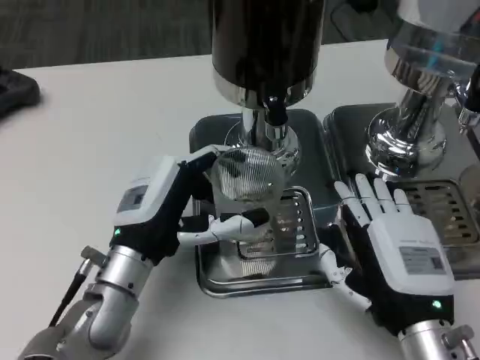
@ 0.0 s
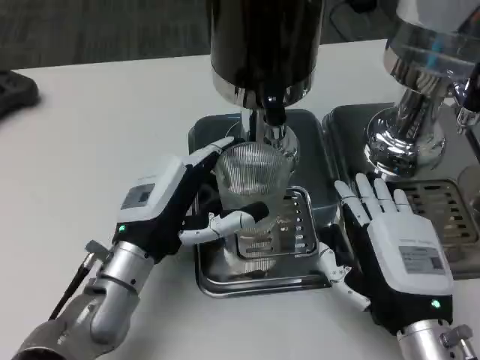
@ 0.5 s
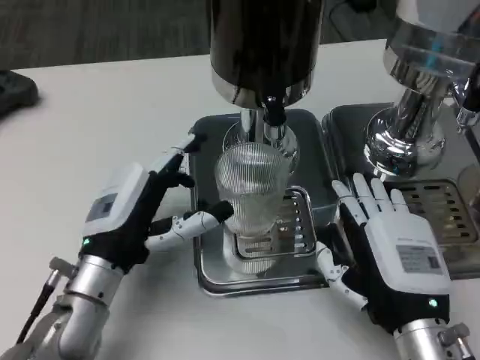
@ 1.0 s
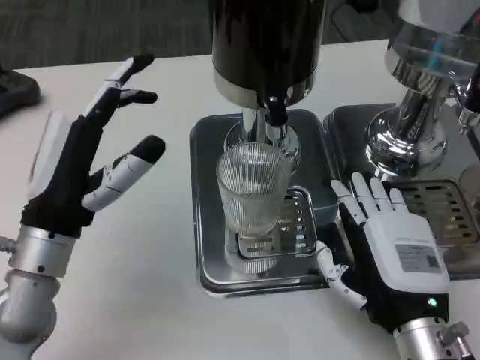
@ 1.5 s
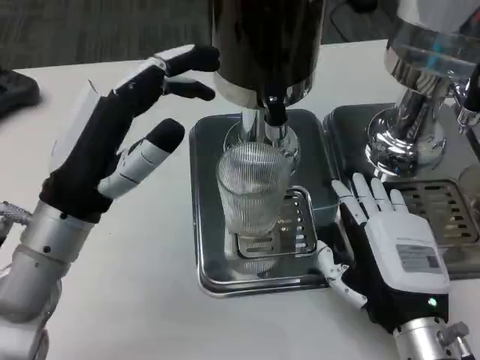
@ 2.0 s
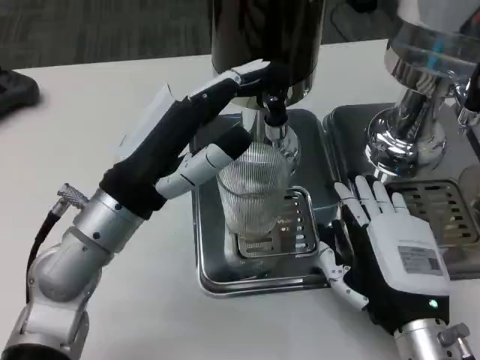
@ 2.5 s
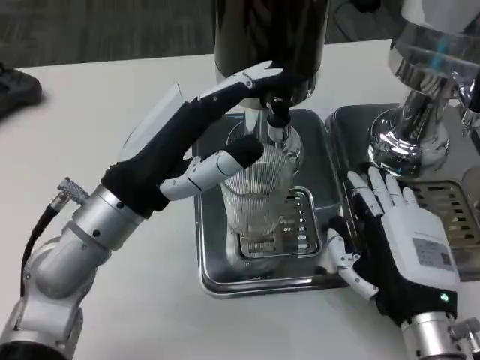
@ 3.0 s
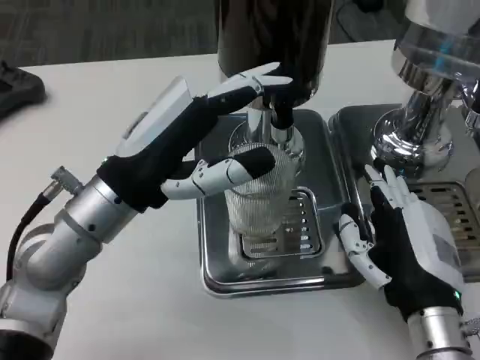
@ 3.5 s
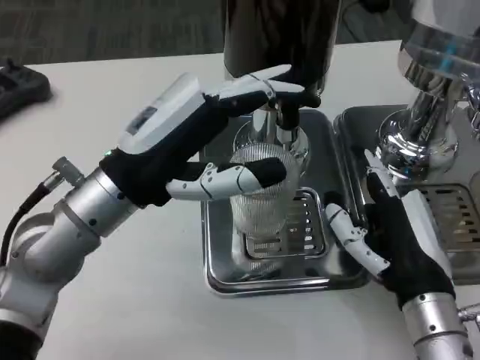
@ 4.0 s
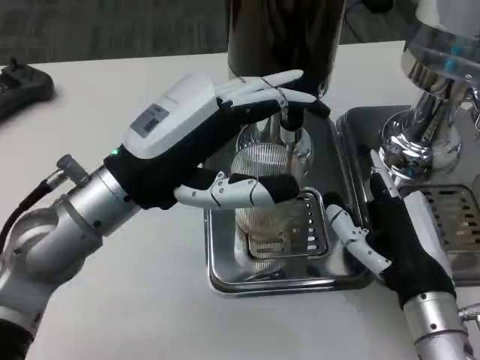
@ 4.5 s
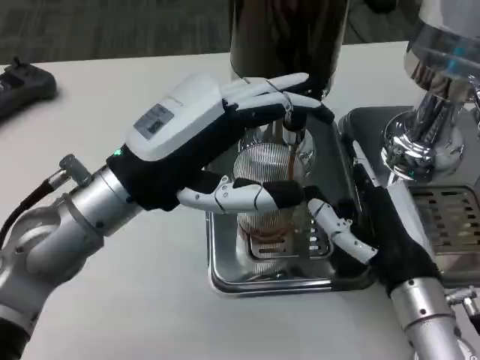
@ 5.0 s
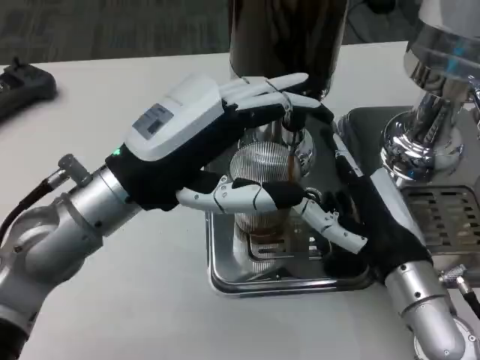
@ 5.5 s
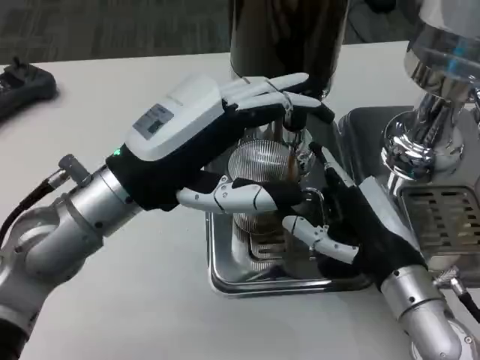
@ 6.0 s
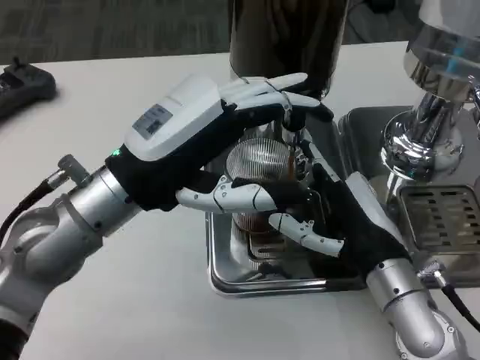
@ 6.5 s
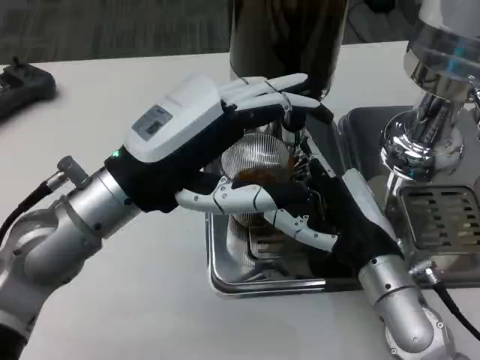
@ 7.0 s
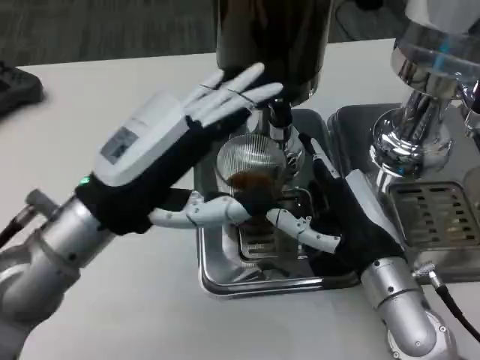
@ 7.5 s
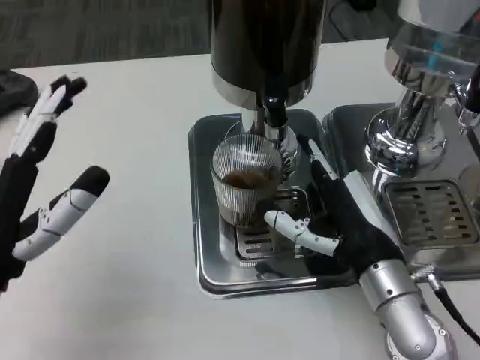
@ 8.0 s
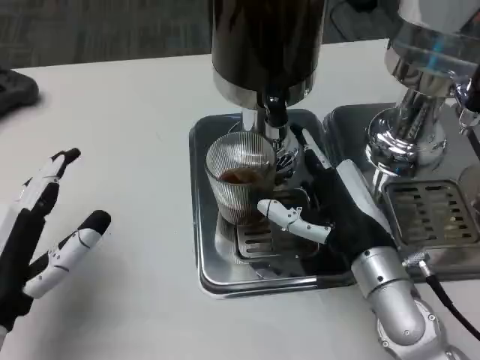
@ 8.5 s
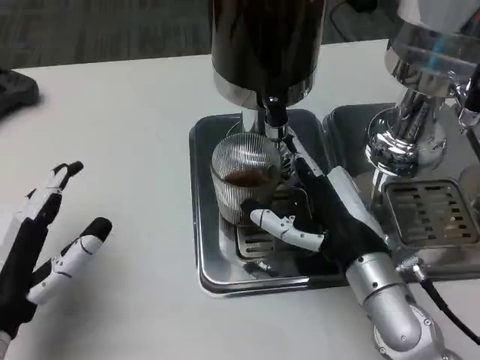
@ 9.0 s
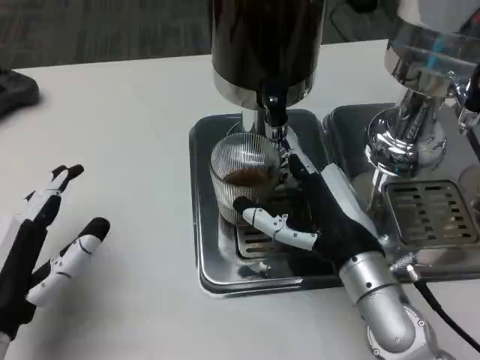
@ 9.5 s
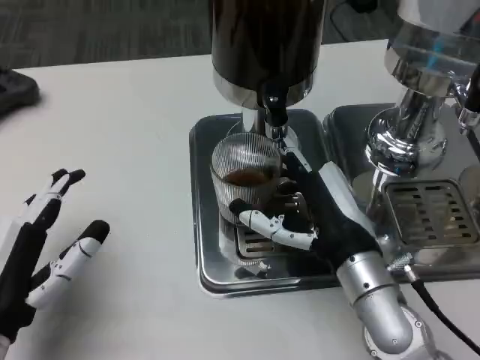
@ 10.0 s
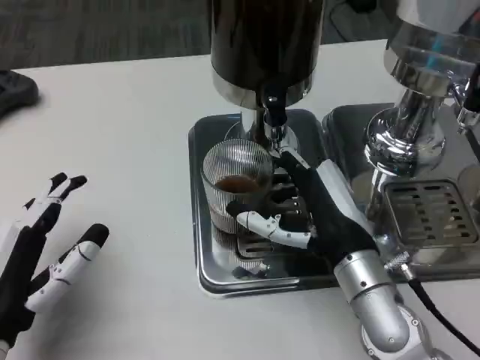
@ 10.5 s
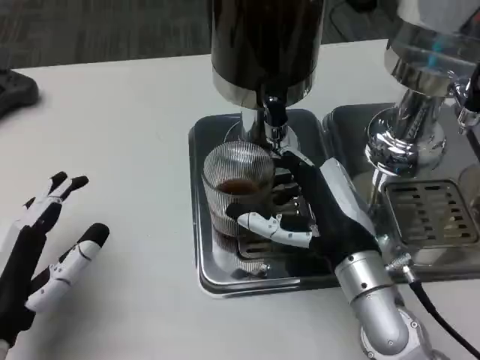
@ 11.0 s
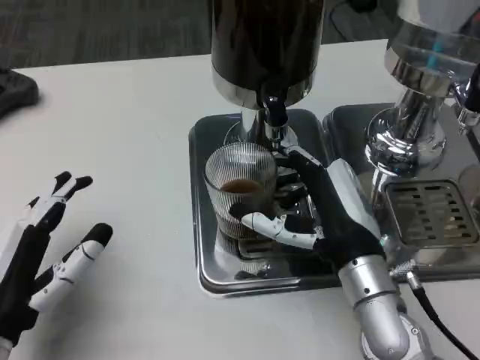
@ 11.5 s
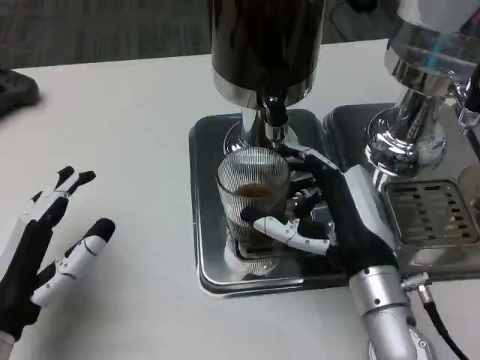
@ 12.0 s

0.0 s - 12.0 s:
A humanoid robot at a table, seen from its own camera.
Task of the whole recording: Grasp the cup under the faucet to collect the drink, then remove the cup.
0.0 s - 2.0 s: The left hand goes some 10 cm upward.
6.0 s - 8.0 s: The left hand moves backward, to the left and downward, roughly 15 cm.
8.0 s - 10.0 s: The left hand ends up approximately 5 cm from where it was.
10.0 s - 12.0 s: The hands stay close to where they were, moving slightly.

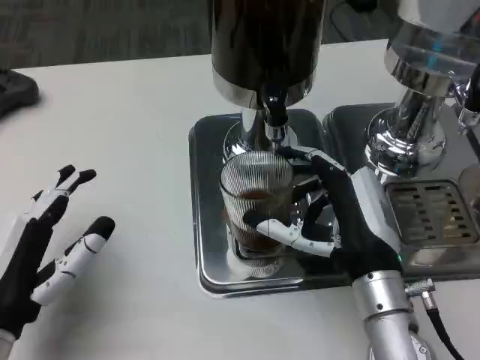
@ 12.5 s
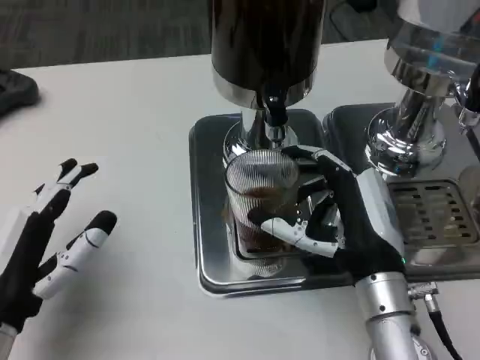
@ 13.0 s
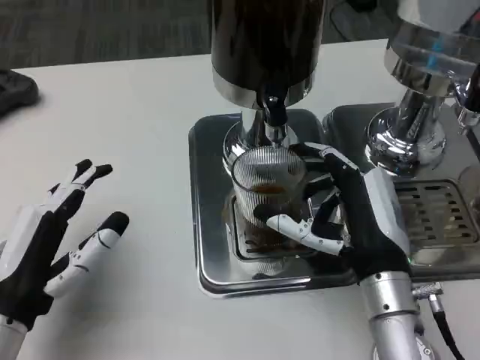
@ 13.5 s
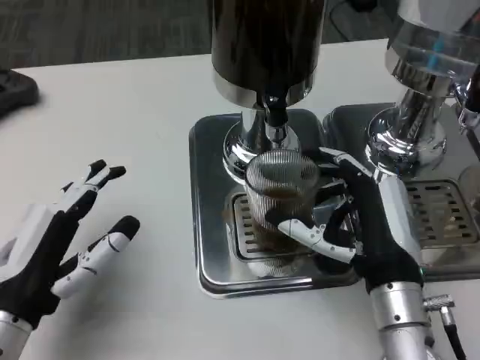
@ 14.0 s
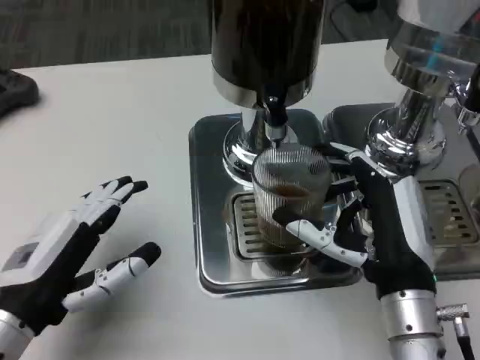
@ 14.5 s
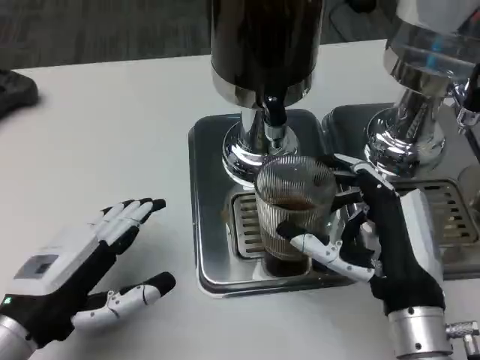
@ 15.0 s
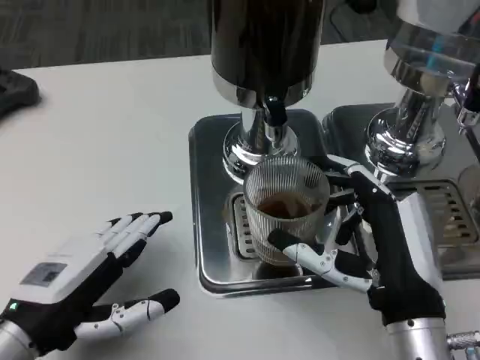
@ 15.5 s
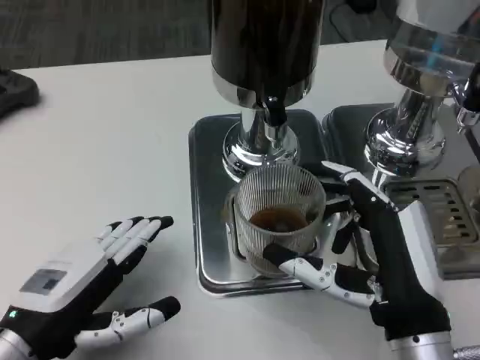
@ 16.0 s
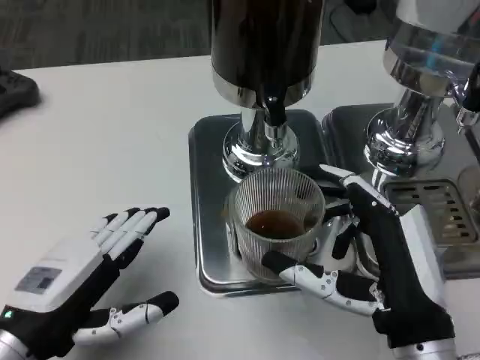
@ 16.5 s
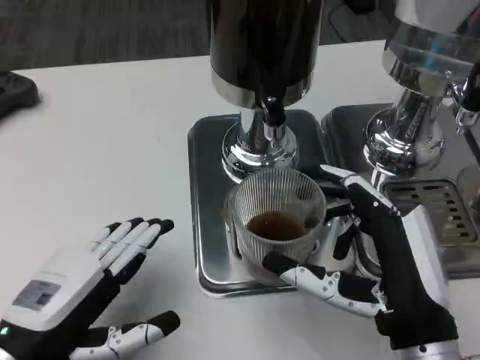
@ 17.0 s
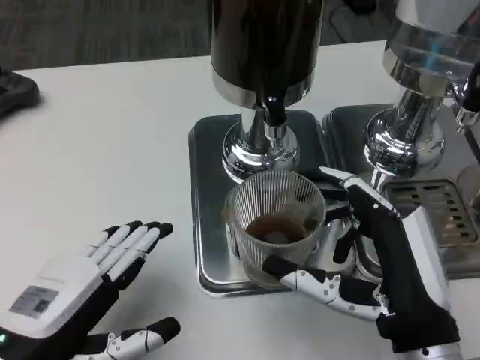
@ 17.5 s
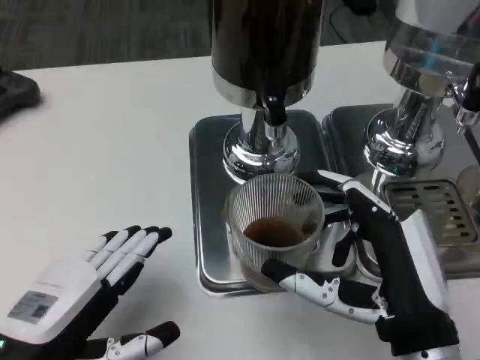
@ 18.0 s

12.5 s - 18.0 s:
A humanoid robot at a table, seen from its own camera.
Task of the whole recording: Grasp the cup under the faucet to collect the drink, then remove the cup.
16.0 s - 18.0 s: There are only small adjustments of the hands.

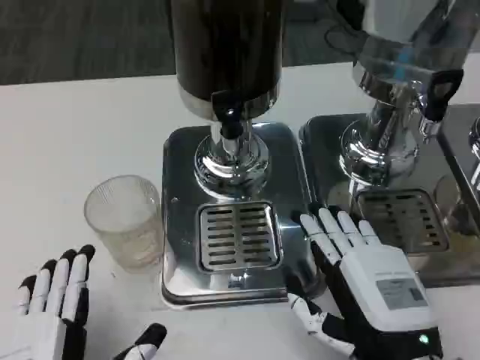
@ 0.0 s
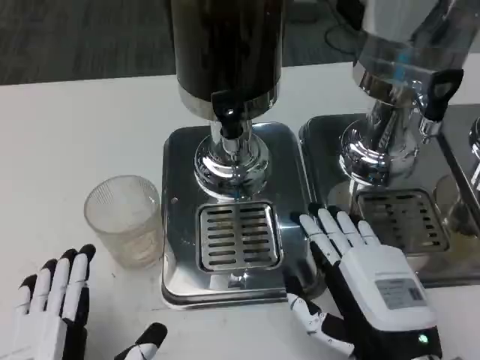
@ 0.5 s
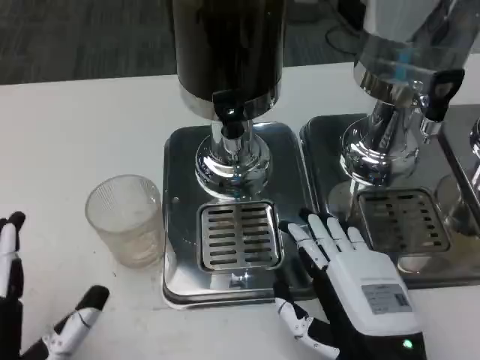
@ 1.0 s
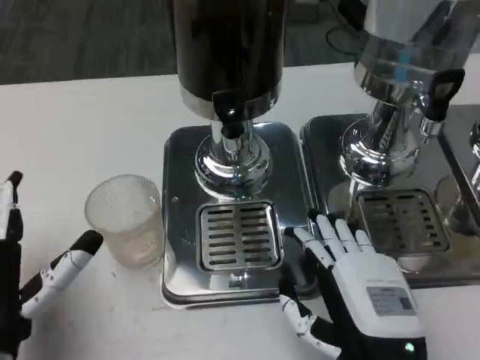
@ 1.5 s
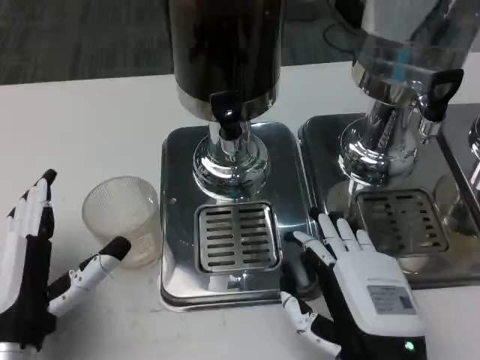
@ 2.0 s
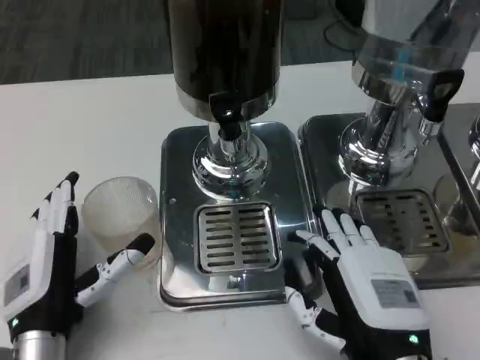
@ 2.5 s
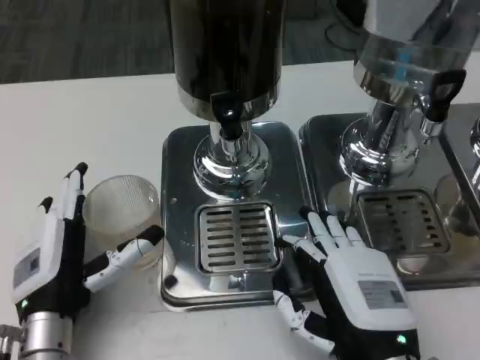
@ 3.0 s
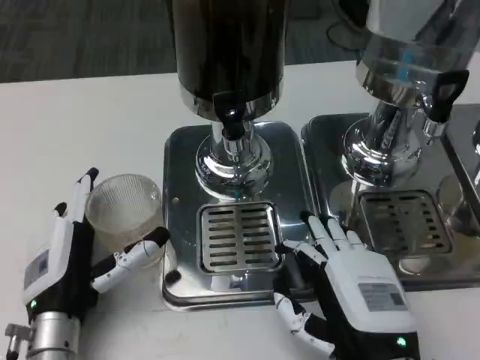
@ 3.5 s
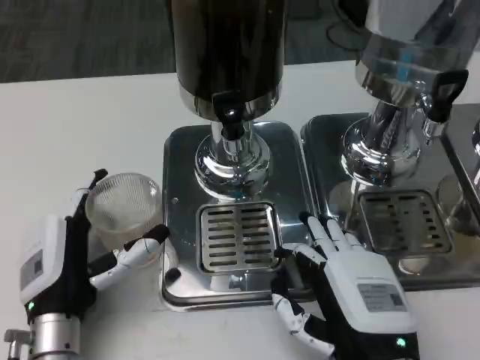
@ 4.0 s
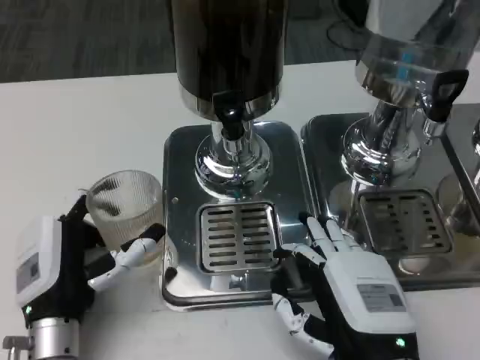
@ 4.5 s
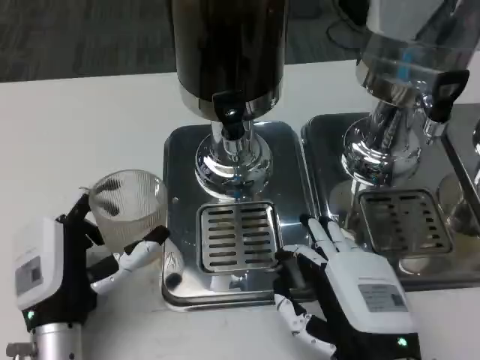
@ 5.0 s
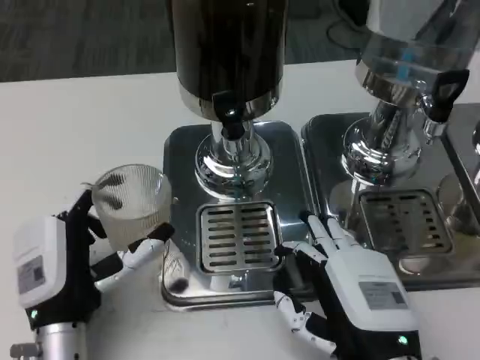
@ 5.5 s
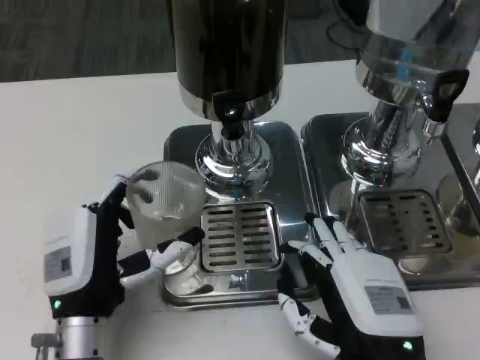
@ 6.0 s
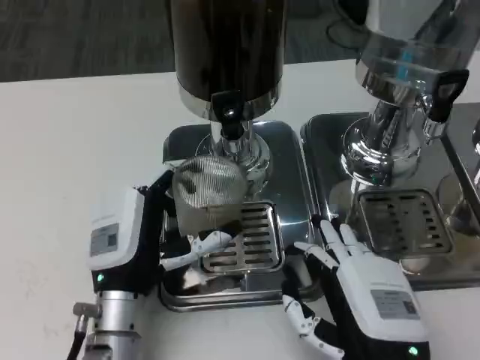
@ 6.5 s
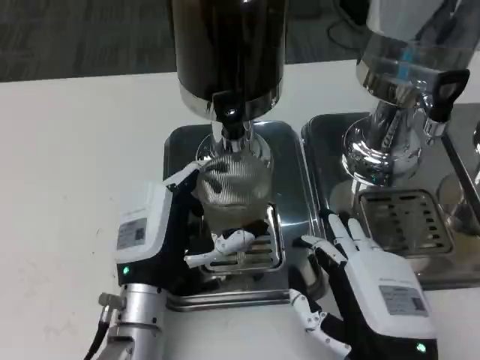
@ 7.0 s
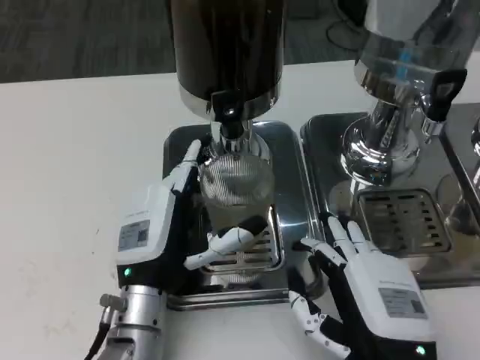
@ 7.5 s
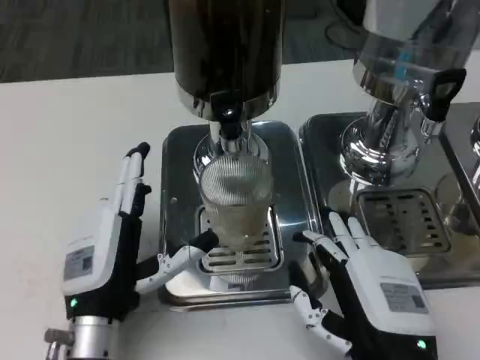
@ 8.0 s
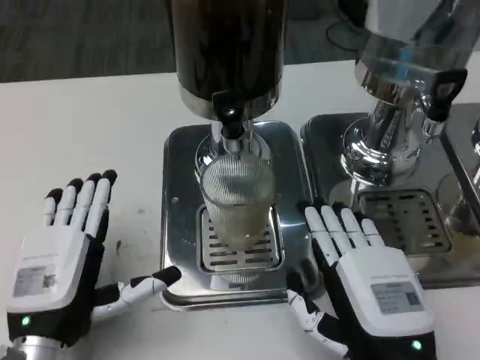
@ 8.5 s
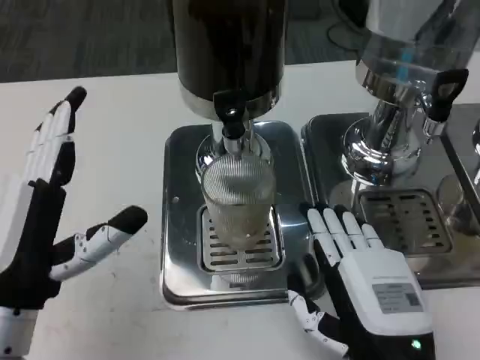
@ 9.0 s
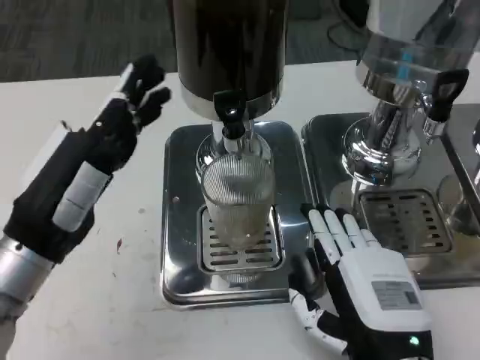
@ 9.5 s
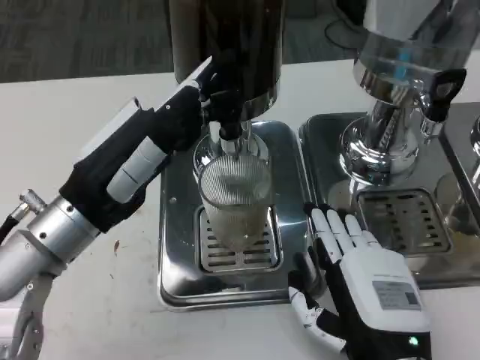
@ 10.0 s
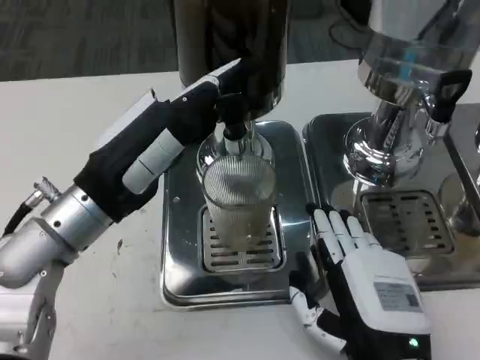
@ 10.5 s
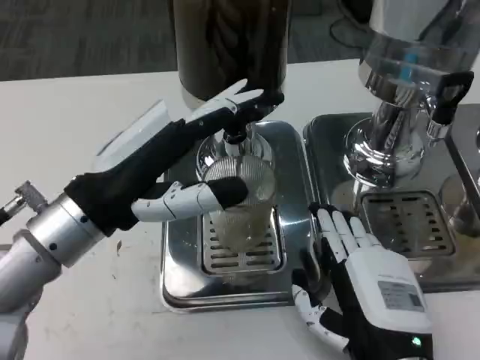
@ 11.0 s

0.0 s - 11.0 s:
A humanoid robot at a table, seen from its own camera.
Task of the whole recording: Grasp the cup under the faucet to collect the drink, then remove the cup.
0.0 s - 2.0 s: The left hand heads forward, covering roughly 10 cm.
2.0 s - 3.5 s: The left hand moves some 5 cm.
3.5 s - 5.5 s: The hands make only small movements.
5.5 s - 7.5 s: The left hand moves to the right, approximately 5 cm.
7.5 s - 9.0 s: The left hand shifts roughly 10 cm to the left and upward.
9.0 s - 11.0 s: The left hand heads upward and forward, covering roughly 10 cm.
